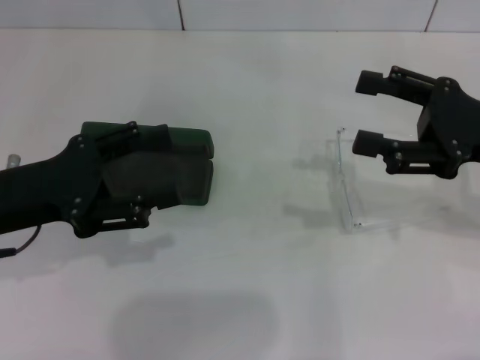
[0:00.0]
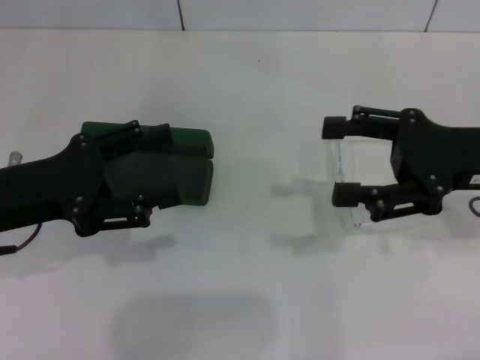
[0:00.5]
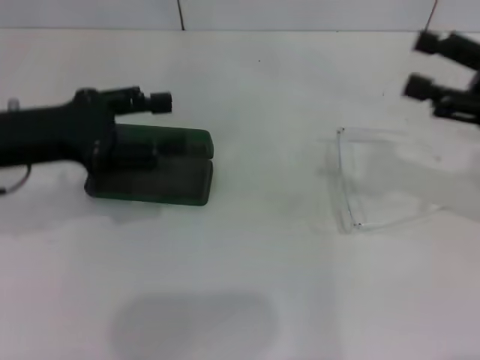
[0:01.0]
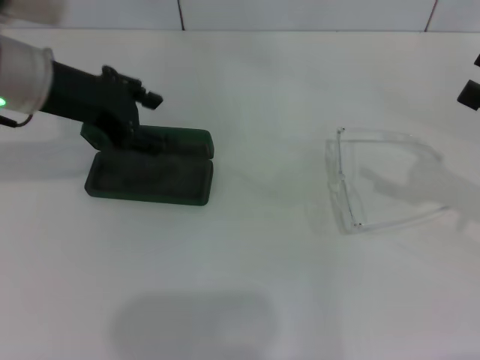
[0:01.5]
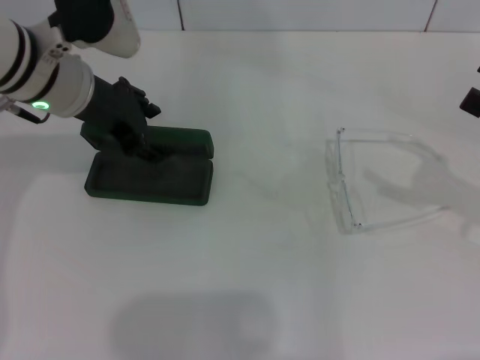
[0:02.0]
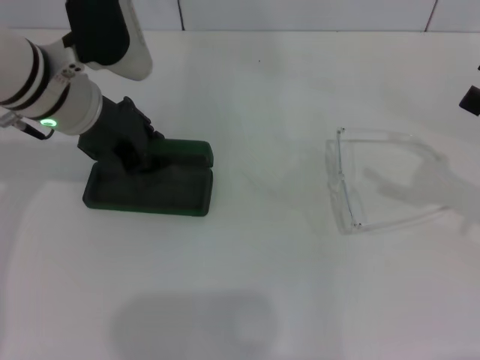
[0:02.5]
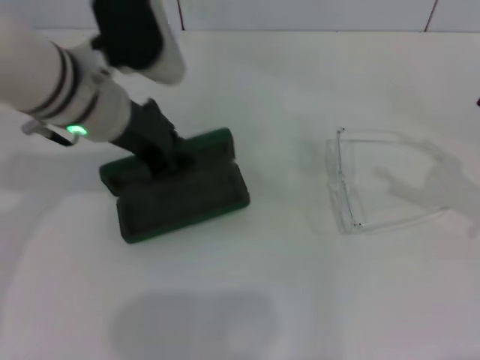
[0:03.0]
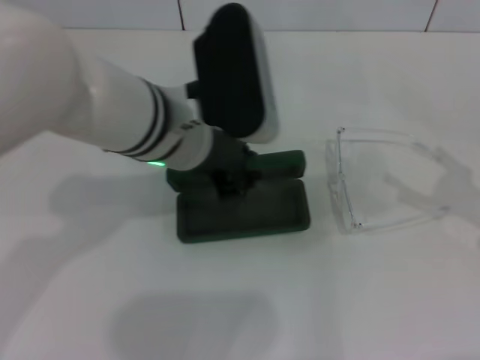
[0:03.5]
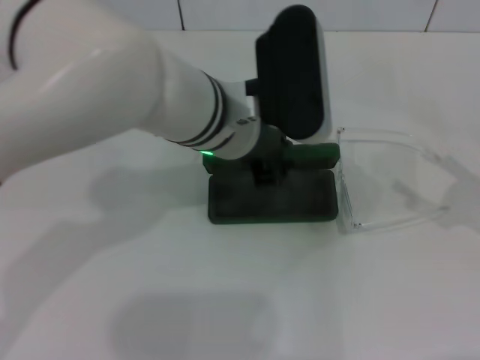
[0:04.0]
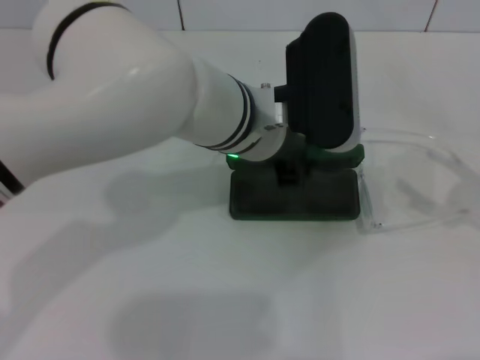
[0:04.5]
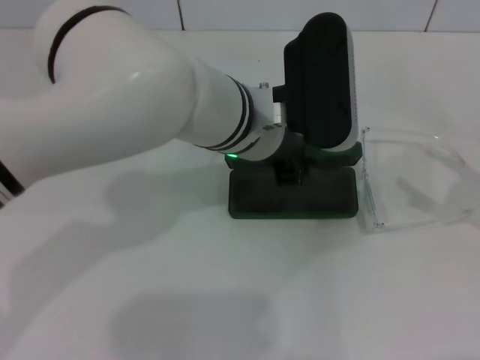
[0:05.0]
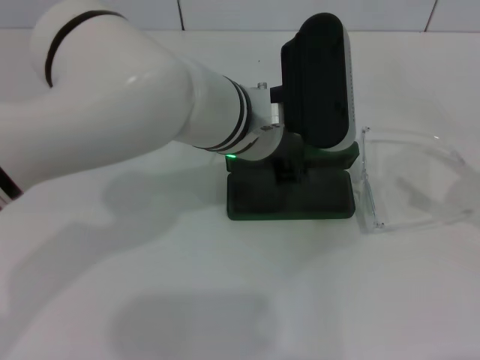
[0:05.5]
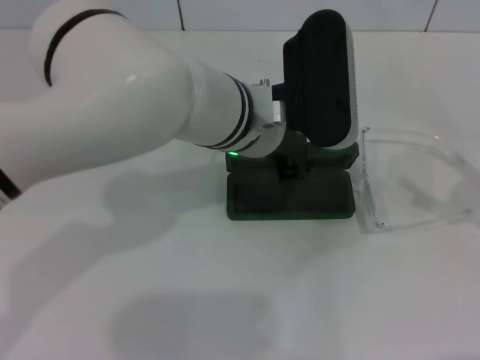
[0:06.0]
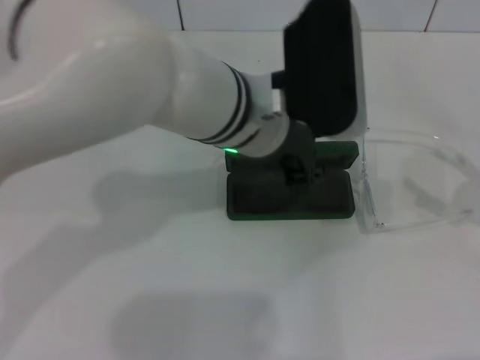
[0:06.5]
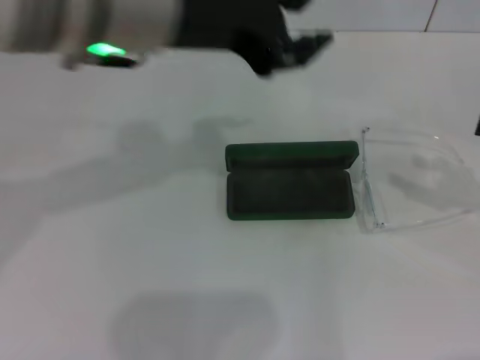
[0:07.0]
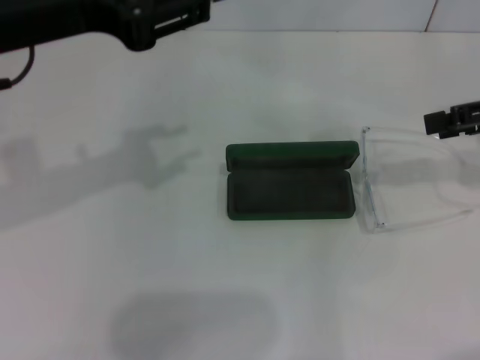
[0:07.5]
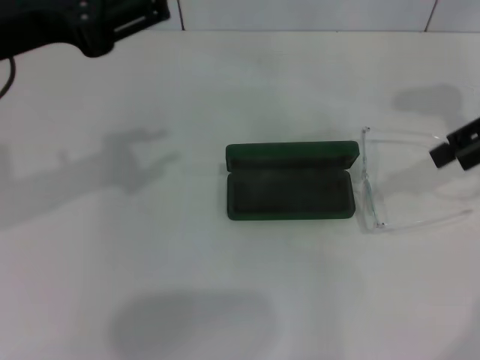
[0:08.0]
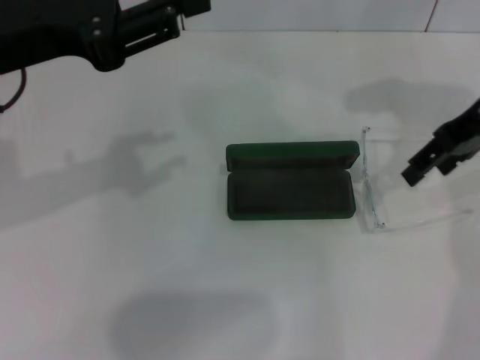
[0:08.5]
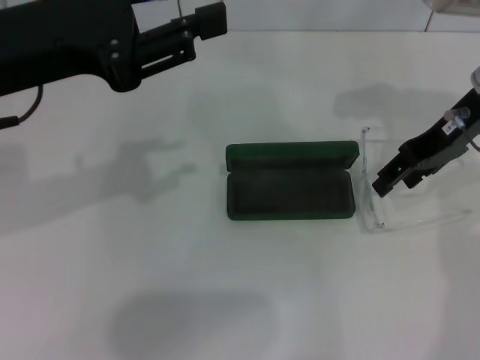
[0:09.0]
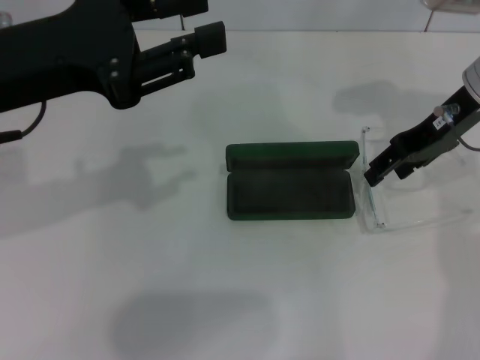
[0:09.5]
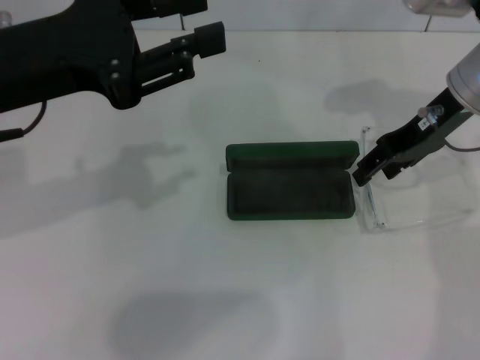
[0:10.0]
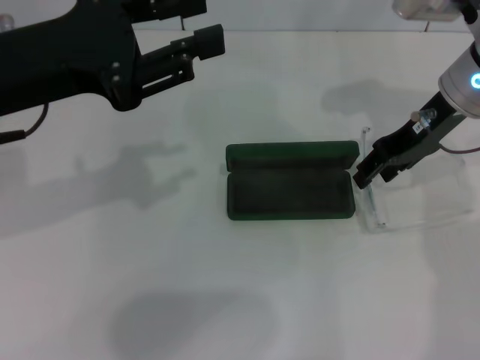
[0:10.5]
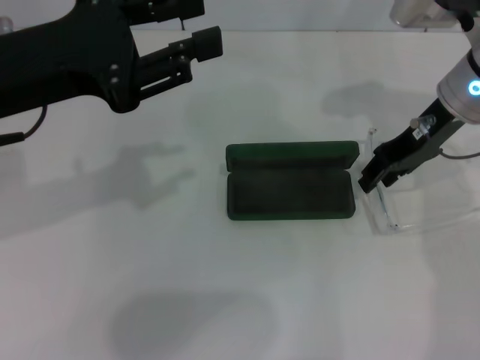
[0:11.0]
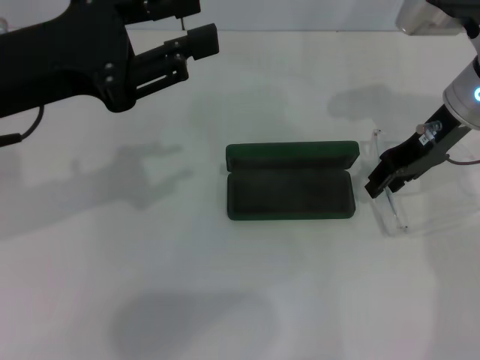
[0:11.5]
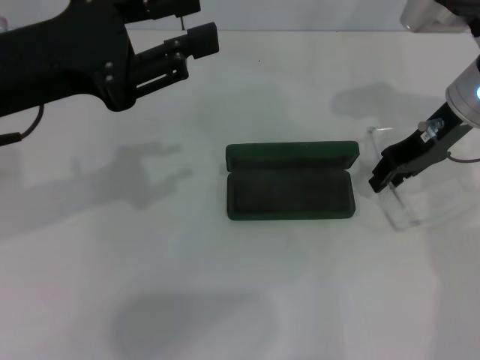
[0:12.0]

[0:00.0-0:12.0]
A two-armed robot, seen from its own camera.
Step, 0:00.0 to 0:02.0: Grab the glasses case with your left hand.
Step, 0:02.5 to 0:05.5: Place the glasses case in the center of the table with your left hand.
0:00.0 to 0:02.0: The right gripper moves to the right, some 10 cm, and opens up. The left gripper moves forward and to the right, some 15 cm.
0:02.0 to 0:04.0: The left gripper travels to the right by approximately 15 cm, and closes its fingers.
0:04.0 to 0:06.0: The grippers make only small movements.
0:06.0 to 0:08.0: The left gripper is displaced to the left and upward by approximately 25 cm. The right gripper heads forward, upward and to the left, covering some 20 cm.
0:08.0 to 0:10.0: The right gripper travels to the left and downward by roughly 10 cm.
0:10.0 to 0:12.0: There are only small adjustments of the grippers.

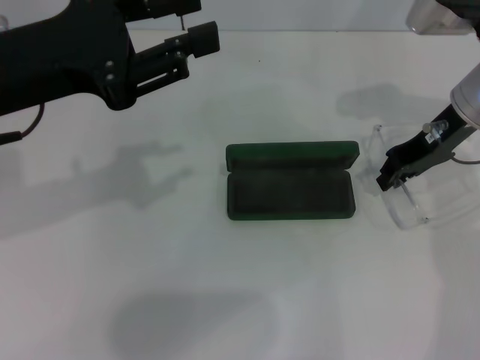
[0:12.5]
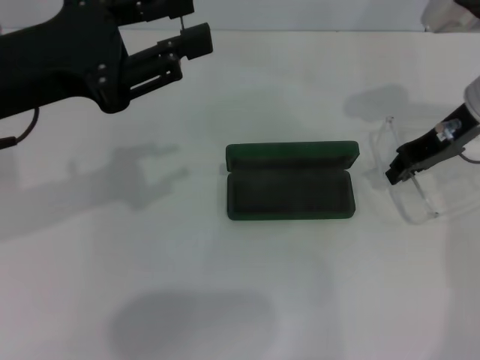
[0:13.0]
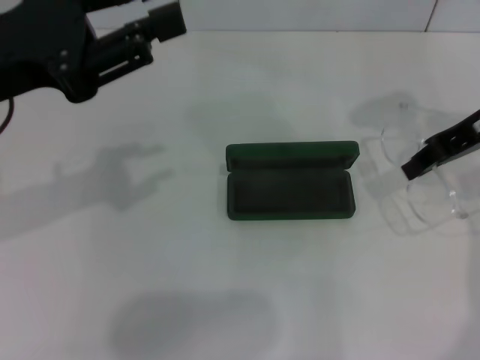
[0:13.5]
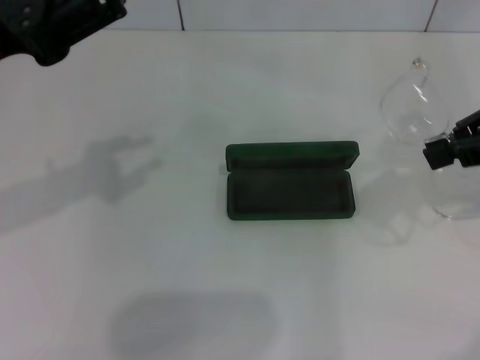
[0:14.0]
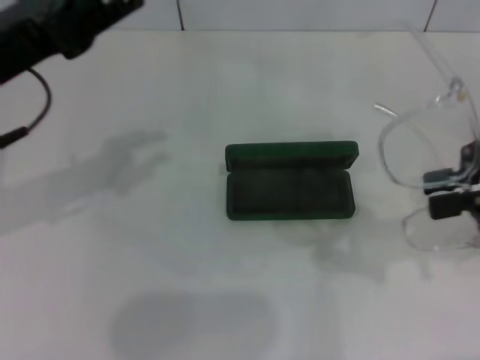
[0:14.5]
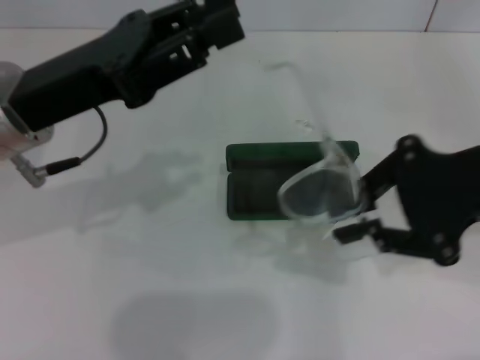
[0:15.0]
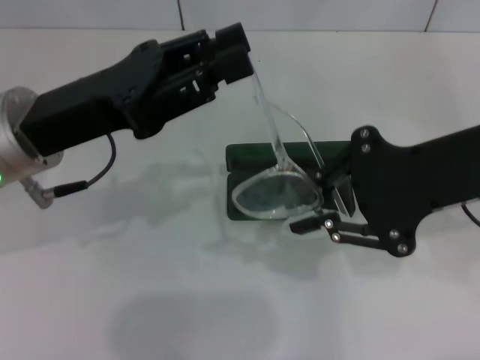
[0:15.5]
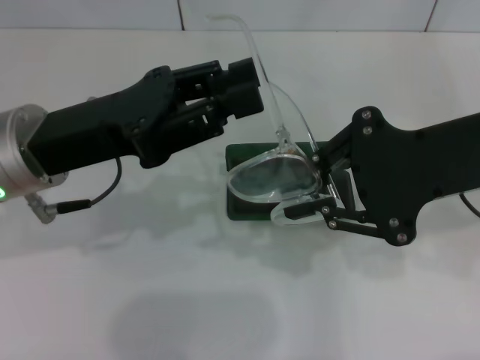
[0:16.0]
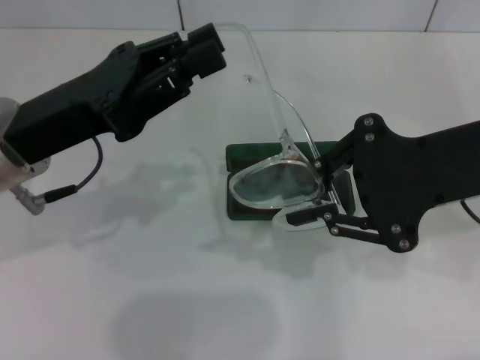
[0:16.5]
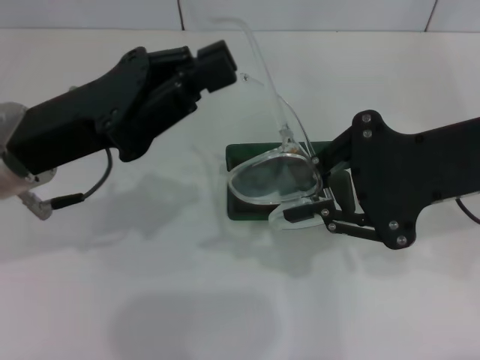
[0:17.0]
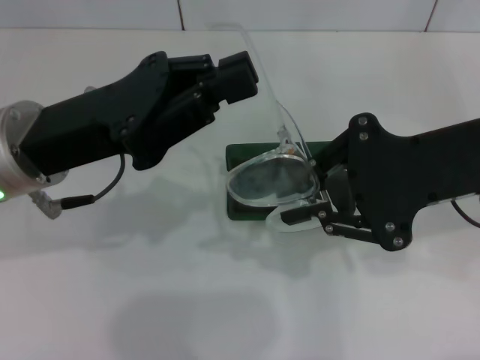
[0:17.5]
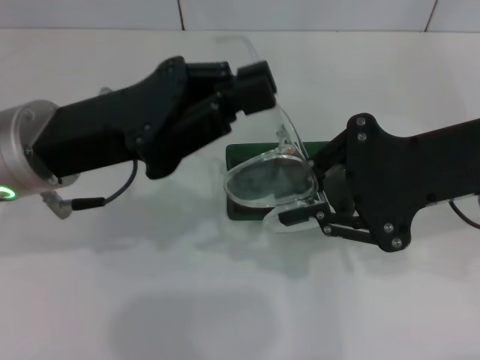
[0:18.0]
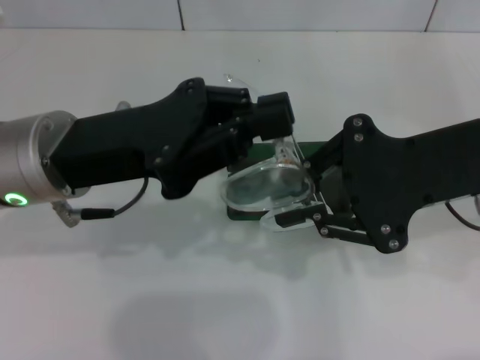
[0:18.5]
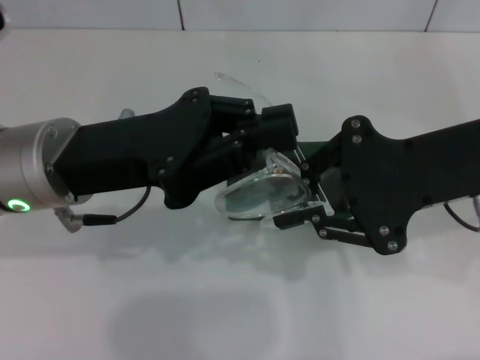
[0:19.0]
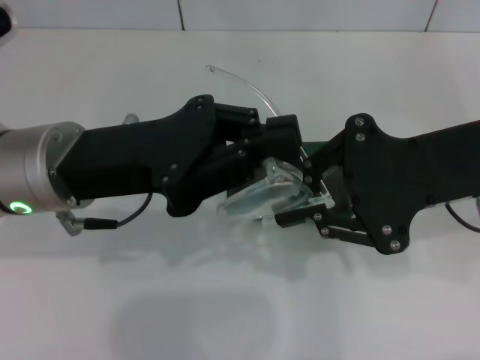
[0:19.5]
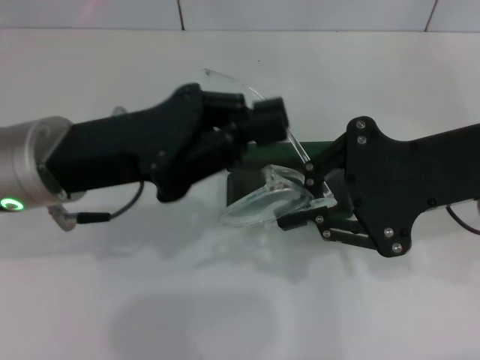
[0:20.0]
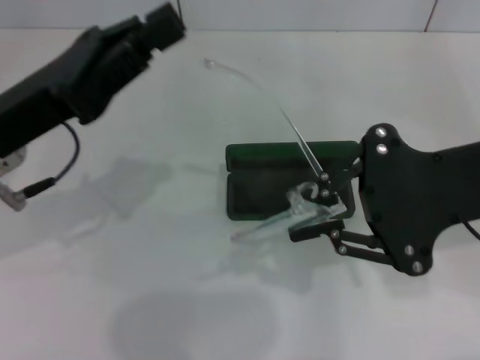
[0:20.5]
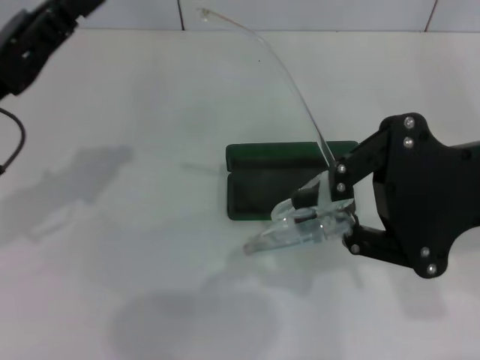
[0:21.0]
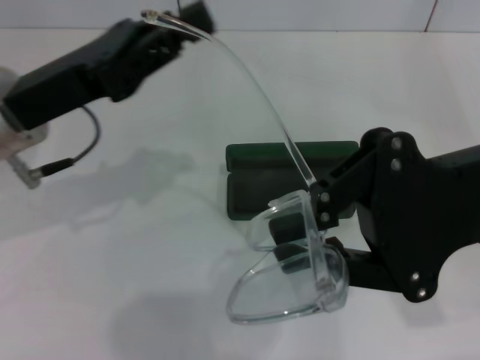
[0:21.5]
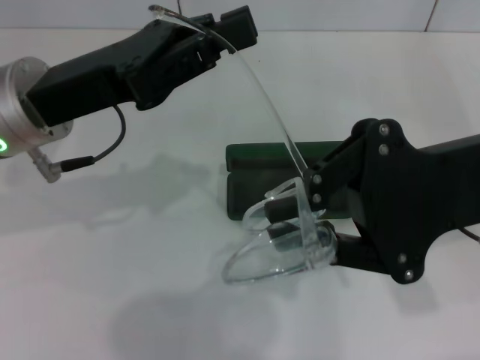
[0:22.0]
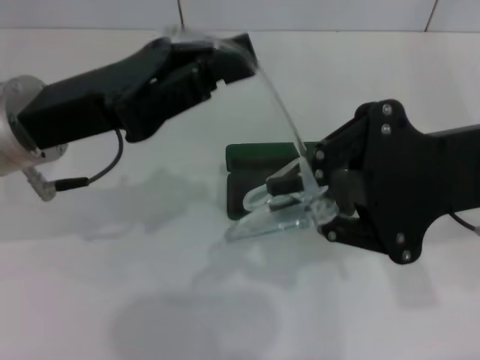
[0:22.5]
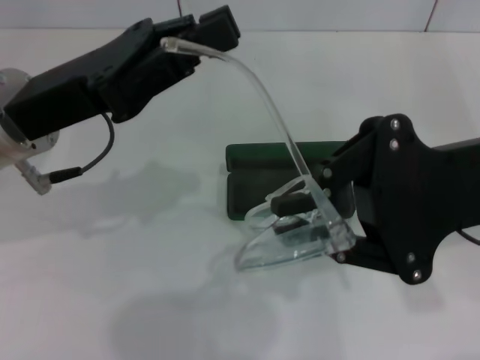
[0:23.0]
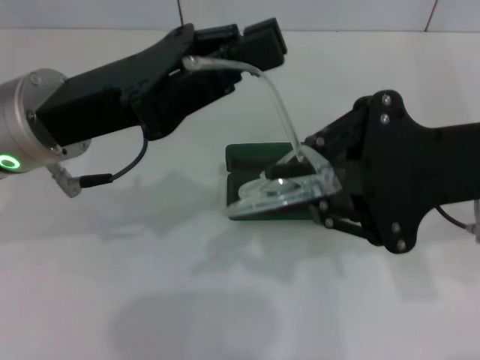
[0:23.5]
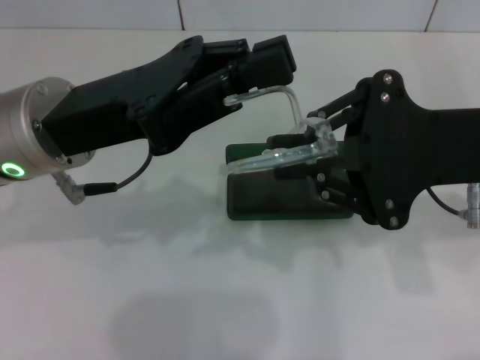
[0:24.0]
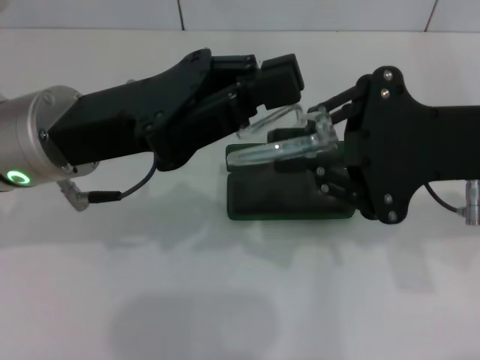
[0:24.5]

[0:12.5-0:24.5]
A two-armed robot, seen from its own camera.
0:12.5 to 0:14.5: The right gripper shifts roughly 20 cm backward, upward and to the right.
0:14.5 to 0:16.5: The right gripper goes approximately 10 cm to the left; the left gripper moves approximately 5 cm.
0:18.5 to 0:20.5: The left gripper heads to the left, covering approximately 5 cm.

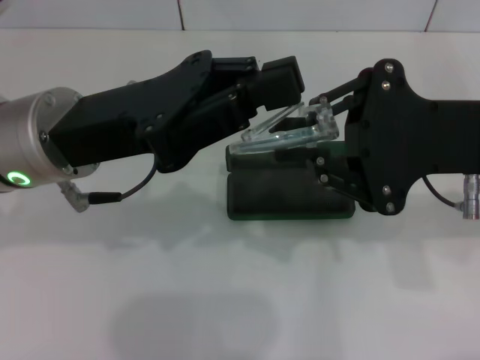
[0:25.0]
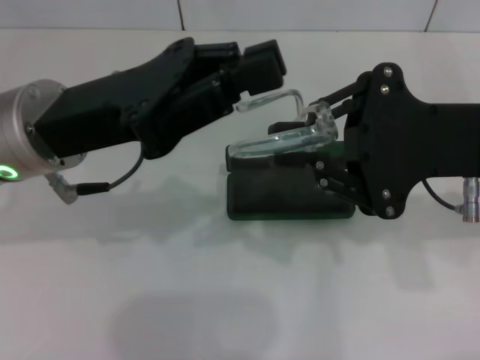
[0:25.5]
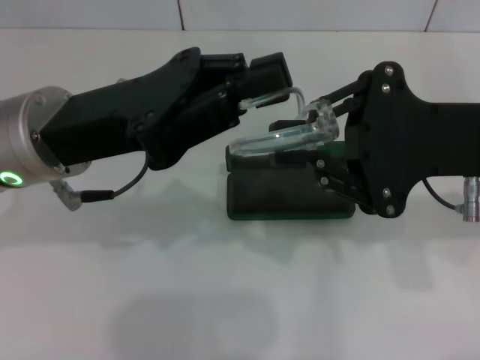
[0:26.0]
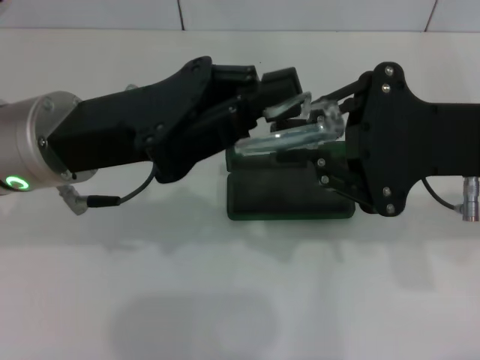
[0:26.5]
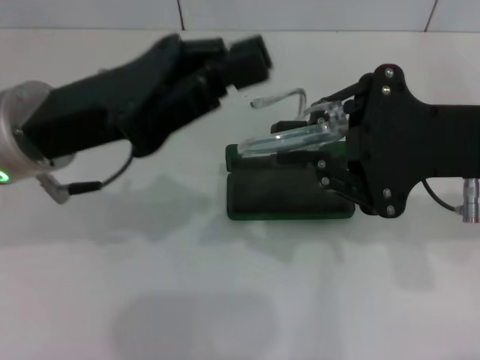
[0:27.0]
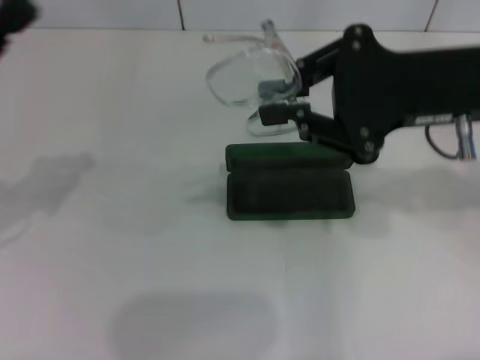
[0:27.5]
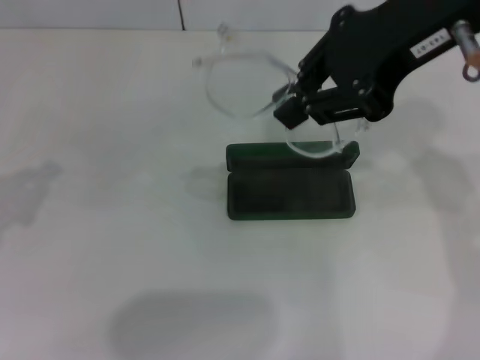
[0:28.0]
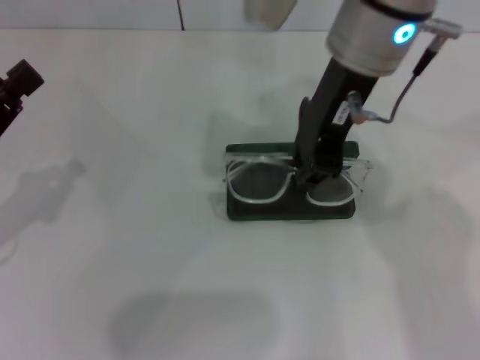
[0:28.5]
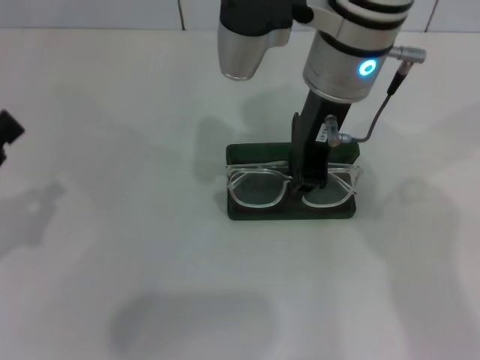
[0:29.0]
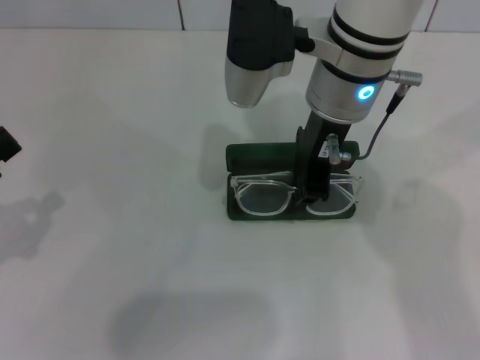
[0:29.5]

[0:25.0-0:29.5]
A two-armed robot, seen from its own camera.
0:25.0 to 0:27.0: The grippers move only a little.
0:27.0 to 0:29.5: The left gripper heads to the left, backward and downward, covering approximately 20 cm, while the right gripper heads to the left and forward, covering some 15 cm.
